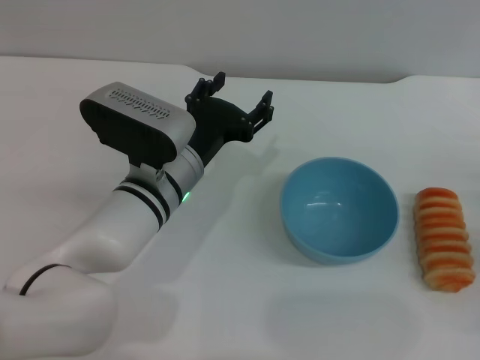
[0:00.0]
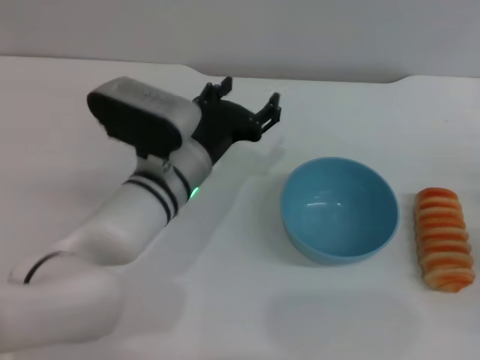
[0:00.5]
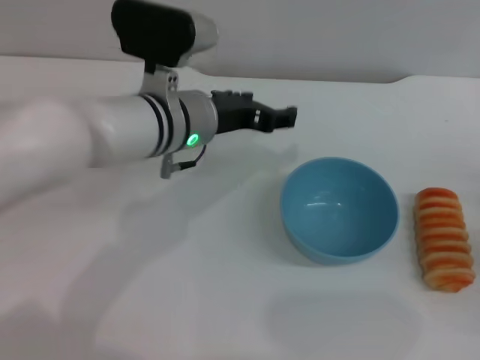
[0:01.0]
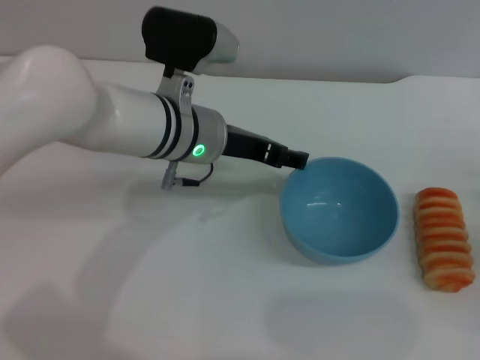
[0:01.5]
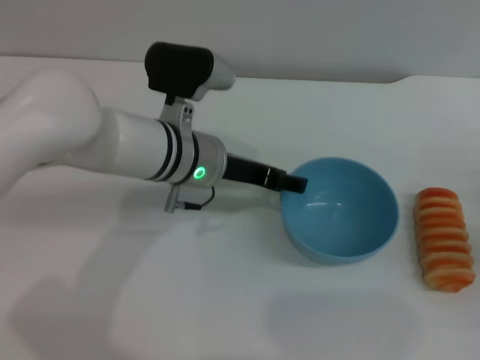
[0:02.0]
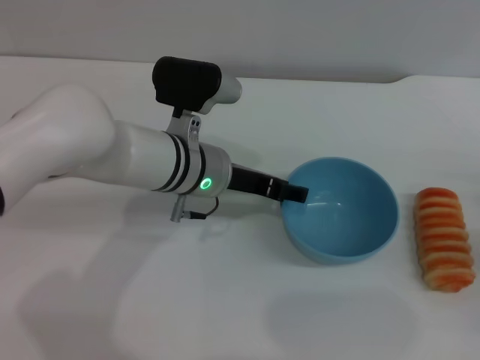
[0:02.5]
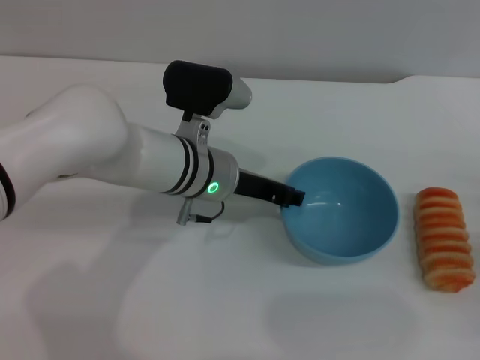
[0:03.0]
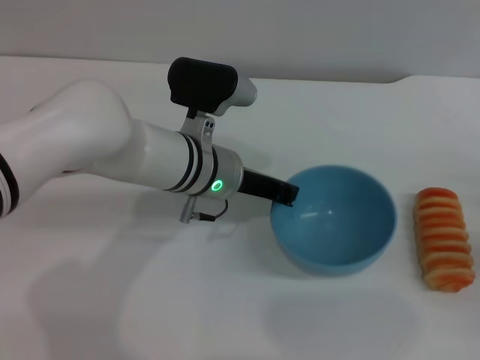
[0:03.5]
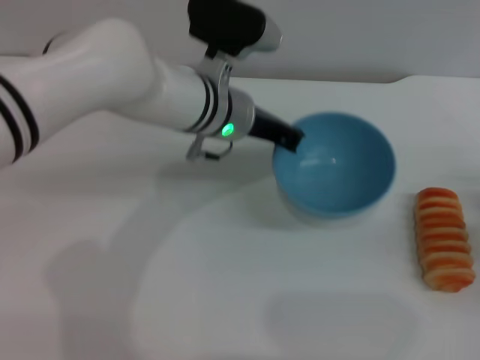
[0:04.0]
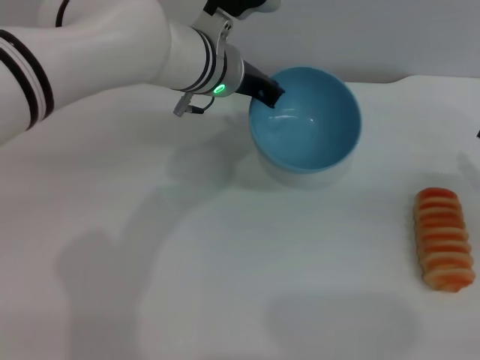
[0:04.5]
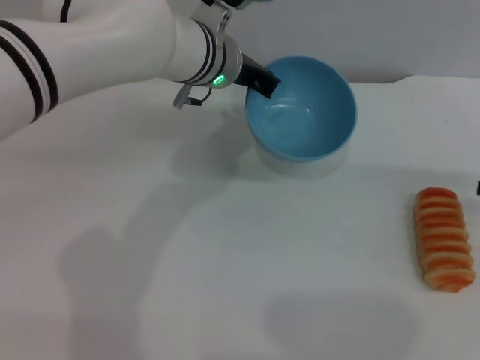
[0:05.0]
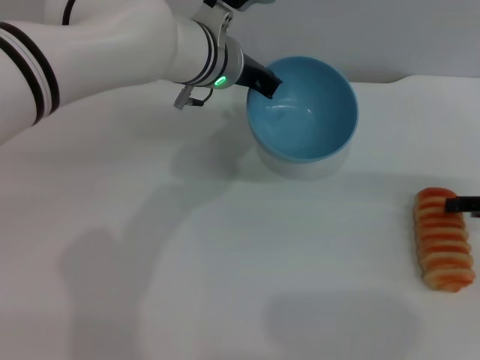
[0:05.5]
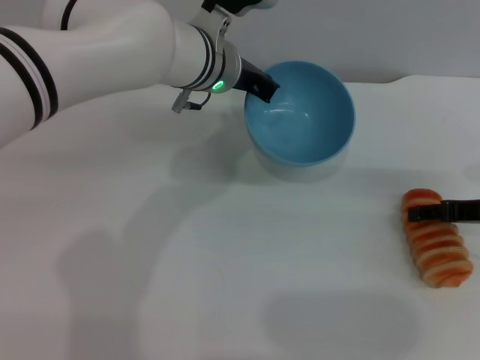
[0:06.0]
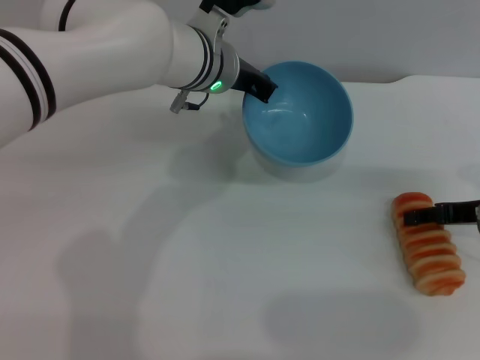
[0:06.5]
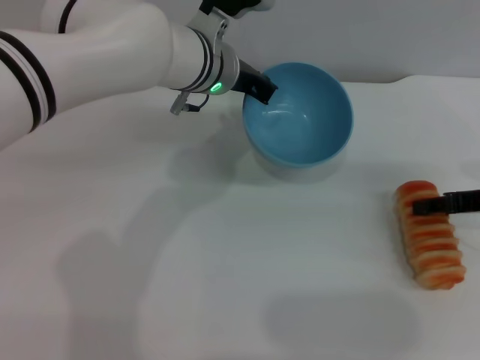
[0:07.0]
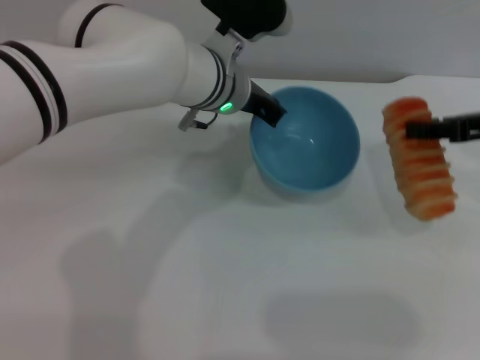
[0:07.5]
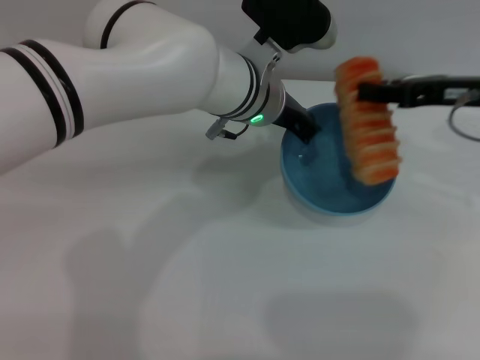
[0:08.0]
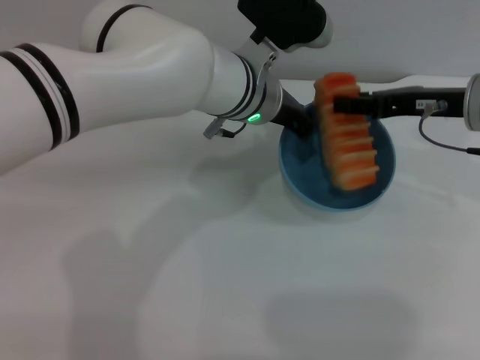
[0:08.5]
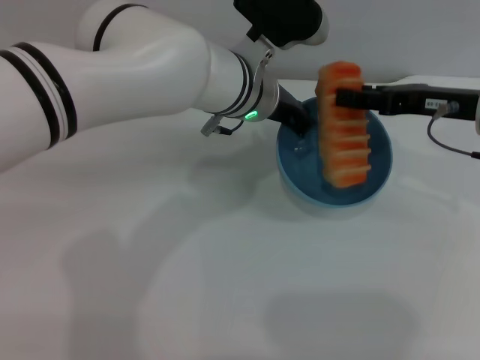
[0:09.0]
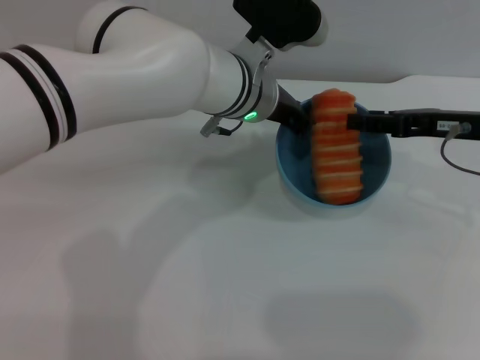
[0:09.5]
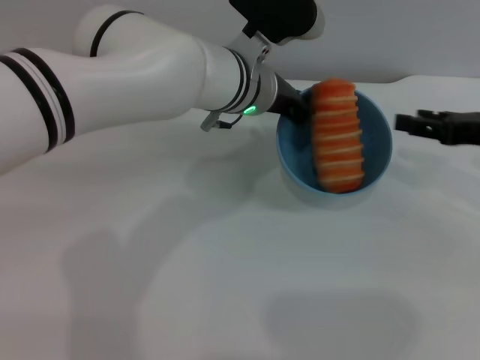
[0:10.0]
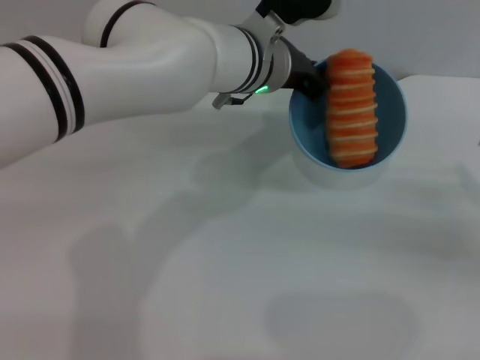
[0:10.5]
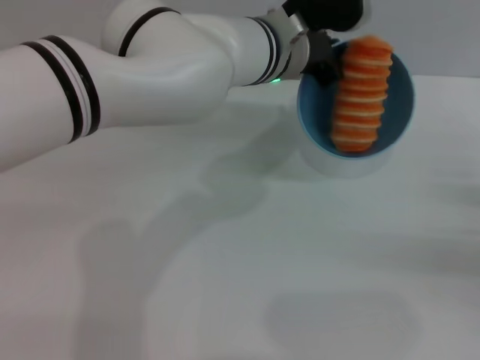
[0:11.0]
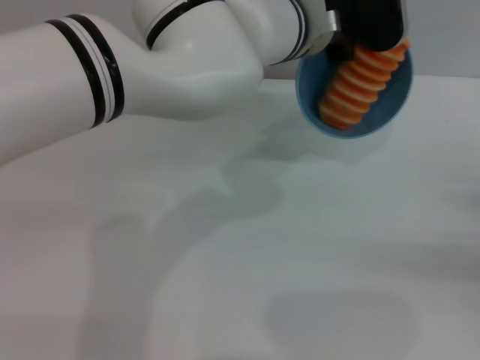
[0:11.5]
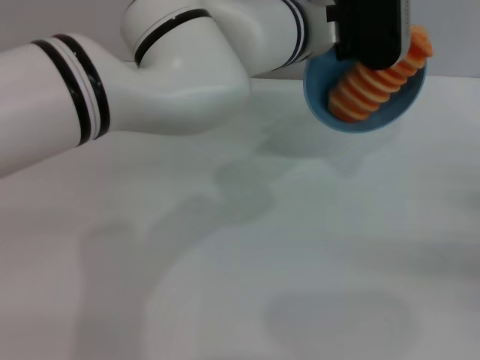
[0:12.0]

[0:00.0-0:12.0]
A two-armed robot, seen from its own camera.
Task of the whole recording: put the bread into the blue bowl and pour it out repeatedly.
Step, 0:00.0 to 0:03.5: Pick up the bowl with the left gripper.
Step, 0:04.0 to 0:06.5: Pick up the bread with the right gripper.
Step, 0:07.0 to 0:11.5: Place the bread into the bowl.
0:00.0 to 0:02.0: The left gripper shifts by some 5 cm.
0:02.0 to 0:04.0: The left gripper changes place by roughly 5 cm, and closes its fingers.
0:04.0 to 0:06.0: The right gripper heads forward and upward, covering roughly 10 cm.
0:06.0 to 0:08.0: The right gripper moves upward and to the left, some 10 cm, and closes. Meanwhile the left gripper shifts by some 5 cm.
0:08.0 to 0:10.0: The right gripper changes place by roughly 5 cm, and opens its fingers.
0:10.0 to 0:12.0: The left gripper changes place by about 5 cm, while the right gripper goes roughly 15 cm downward, backward and to the right.

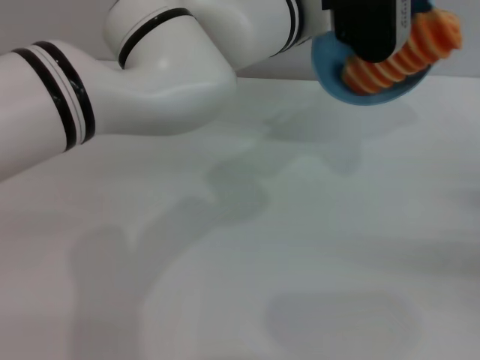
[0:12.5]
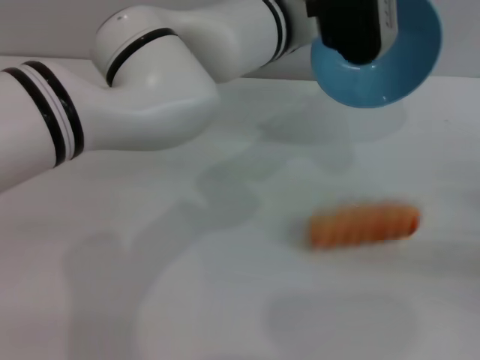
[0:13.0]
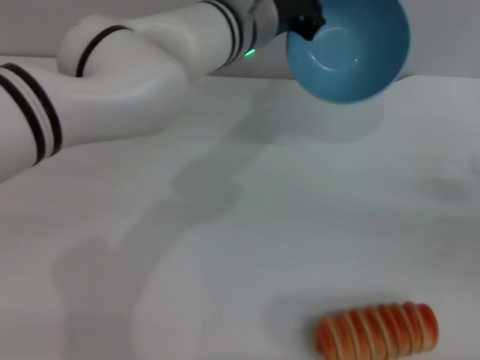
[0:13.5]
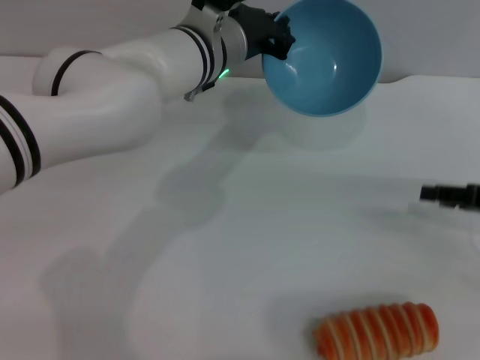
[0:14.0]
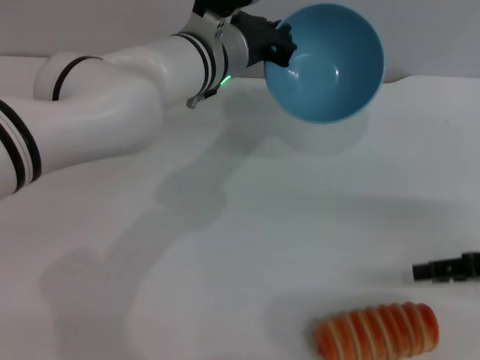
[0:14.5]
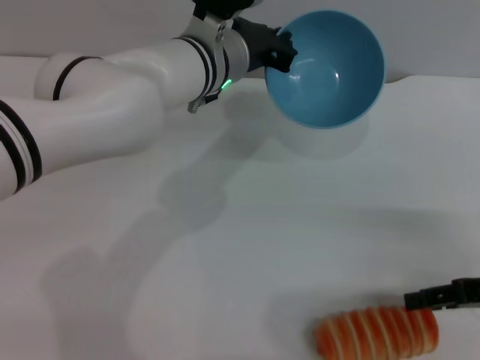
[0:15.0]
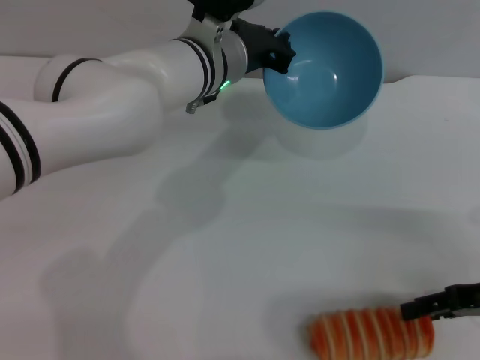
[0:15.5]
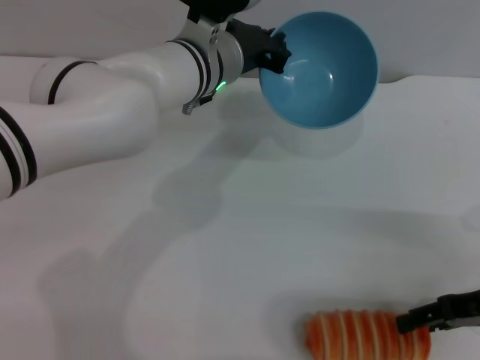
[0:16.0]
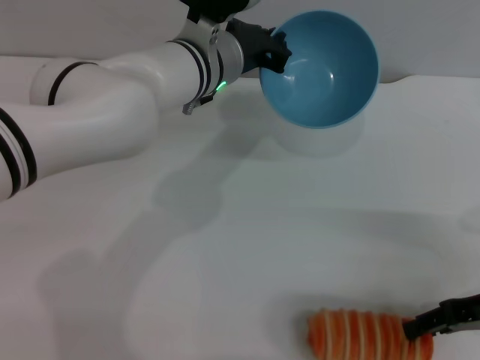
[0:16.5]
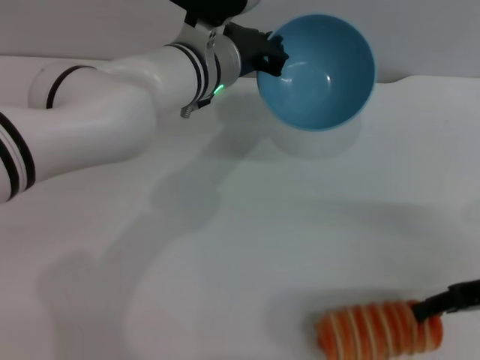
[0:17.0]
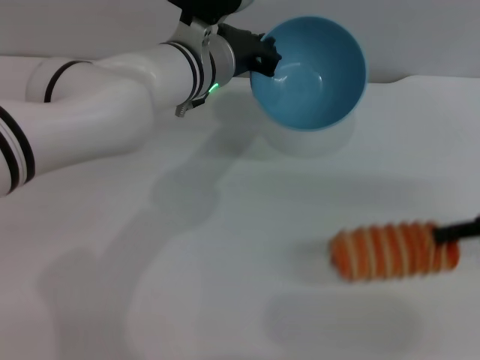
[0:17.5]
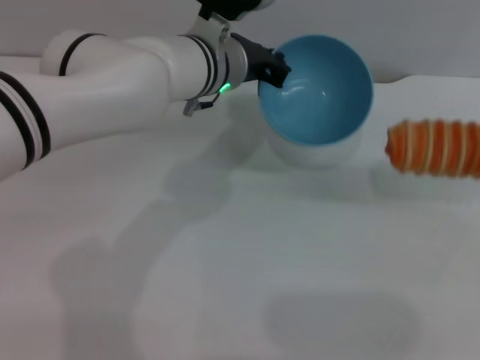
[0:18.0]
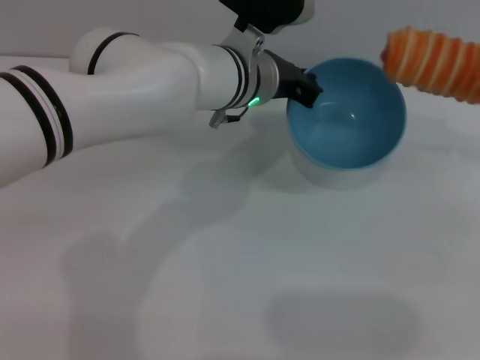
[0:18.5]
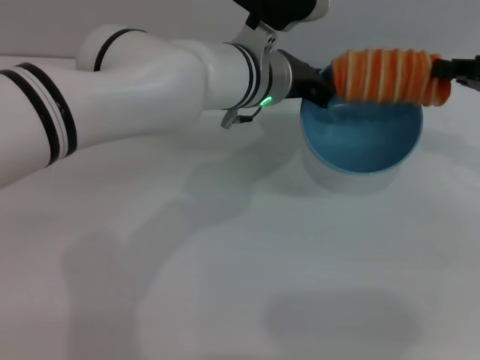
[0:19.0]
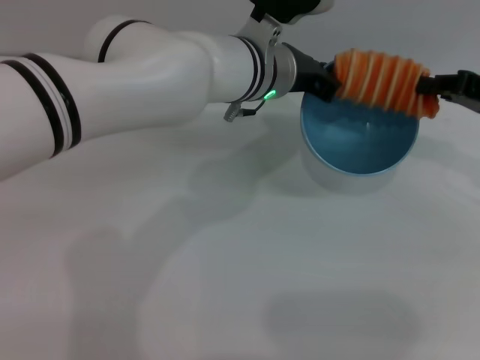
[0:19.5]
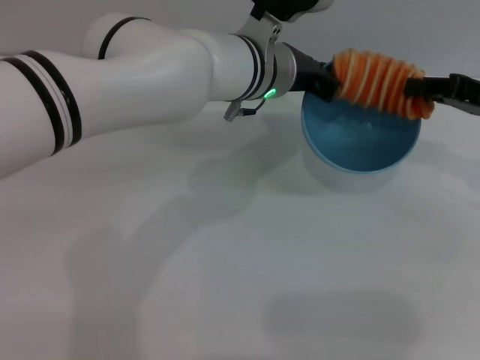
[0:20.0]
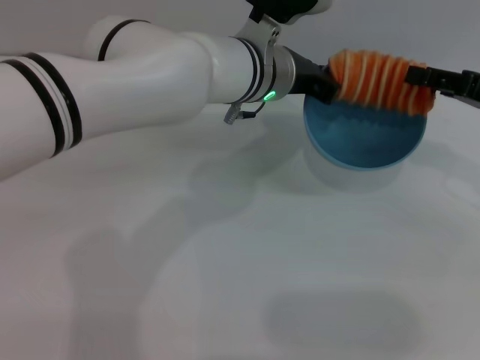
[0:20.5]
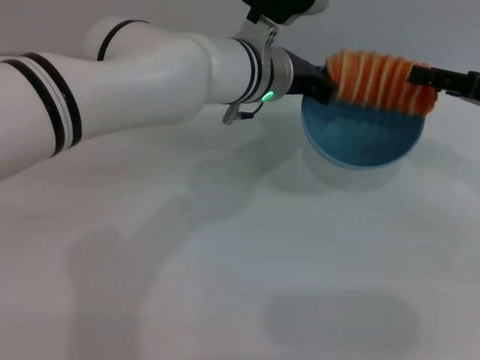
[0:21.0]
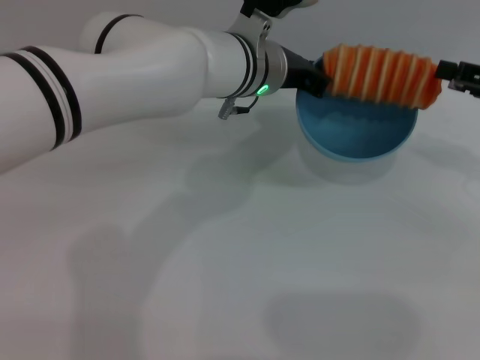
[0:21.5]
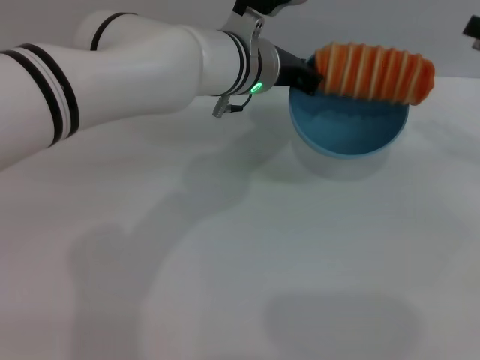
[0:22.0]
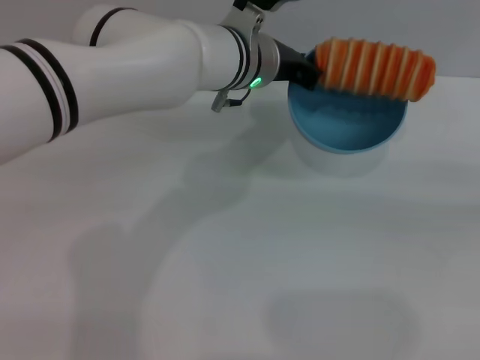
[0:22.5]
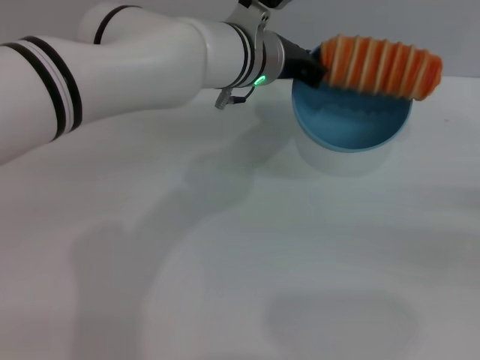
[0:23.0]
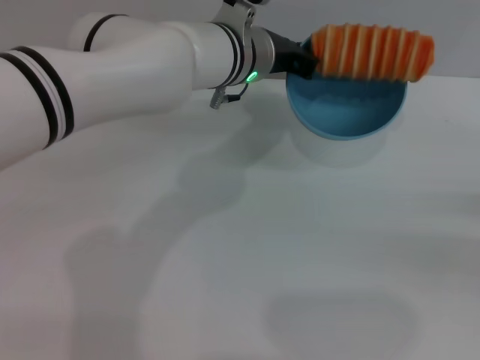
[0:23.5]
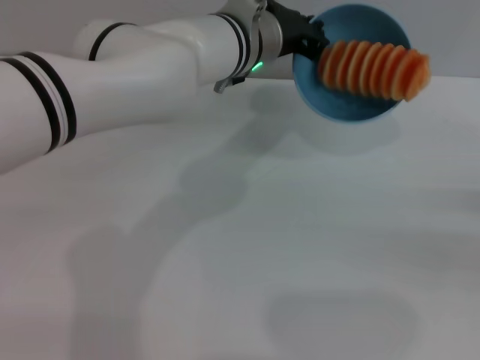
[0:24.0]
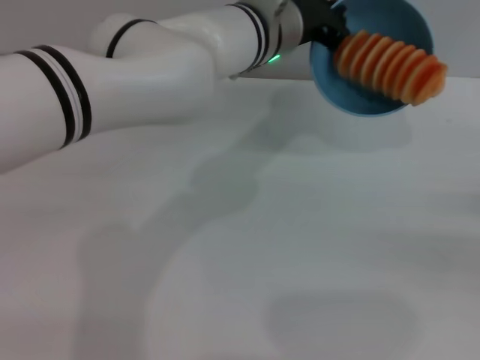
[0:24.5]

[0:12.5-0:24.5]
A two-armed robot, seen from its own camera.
Task of the whole recording: put the bread into the blue bowl and pour it out repeatedly.
Step, 0:13.5 to 0:17.0: Pick up the bread with the right gripper.
Step, 0:17.5 to 0:22.0: Place the bread into the bowl.
0:12.5 to 0:14.5: The left gripper heads to the left and downward, covering roughly 10 cm. The right gripper goes approximately 5 cm to the left.
0:14.5 to 0:16.5: The right gripper closes its fingers.
0:16.5 to 0:18.5: The right gripper moves upward, forward and to the right, some 15 cm, and closes its fingers.
0:18.5 to 0:20.5: The right gripper heads to the left, covering some 5 cm, and opens up.
0:20.5 to 0:22.5: The right gripper heads to the right and backward, covering roughly 15 cm.
0:22.5 to 0:24.5: The right gripper travels downward by some 5 cm.

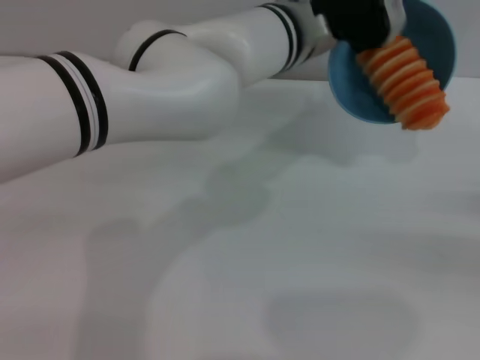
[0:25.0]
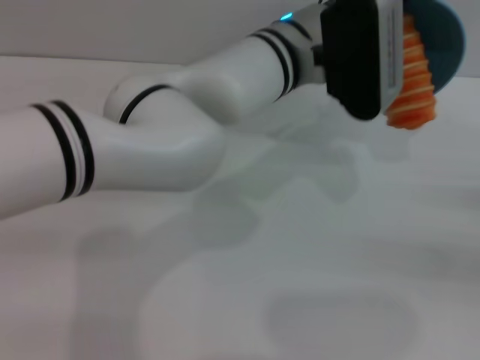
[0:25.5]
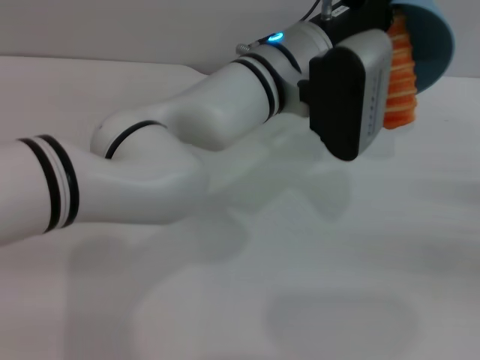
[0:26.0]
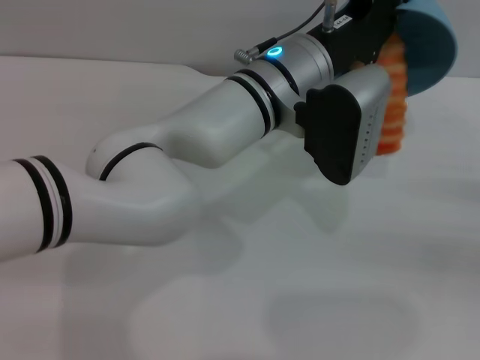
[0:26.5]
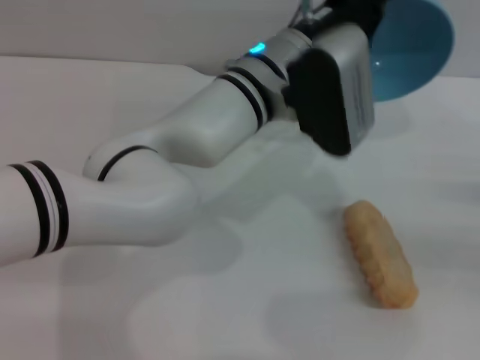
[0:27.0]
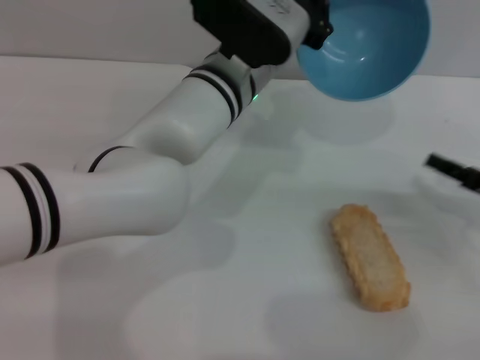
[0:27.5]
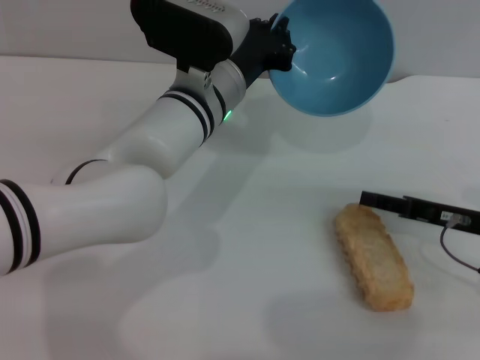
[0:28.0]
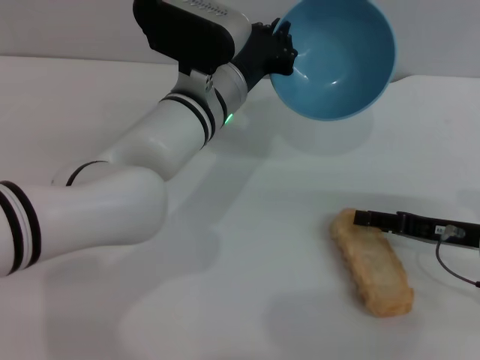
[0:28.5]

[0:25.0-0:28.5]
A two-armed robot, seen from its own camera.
Task of the whole recording: put the bread into the blue bowl and pour it out repeatedly.
Step, 0:25.0 to 0:27.0: Pour the bread out of the bowl.
0:25.0 to 0:27.0: The left gripper changes place by approximately 5 cm.
0:27.0 to 0:28.5: The right gripper goes roughly 15 cm to the left. Meanwhile the left gripper shifts roughly 5 cm to the left.
